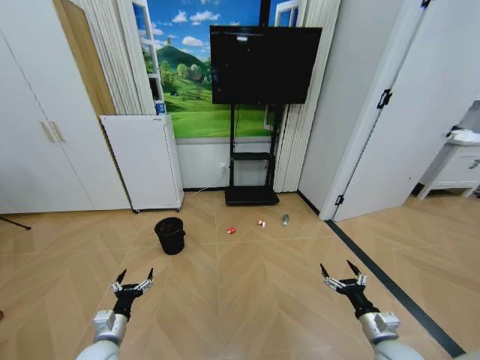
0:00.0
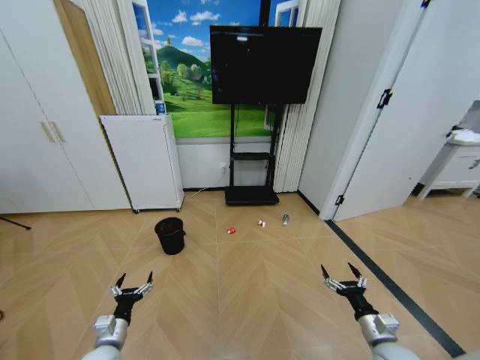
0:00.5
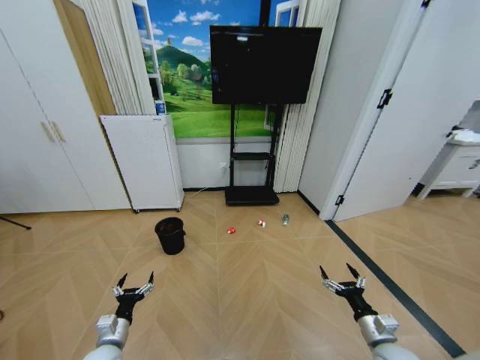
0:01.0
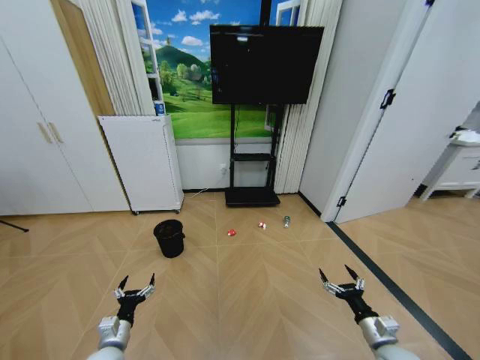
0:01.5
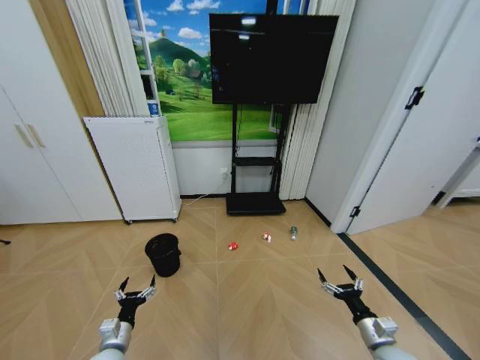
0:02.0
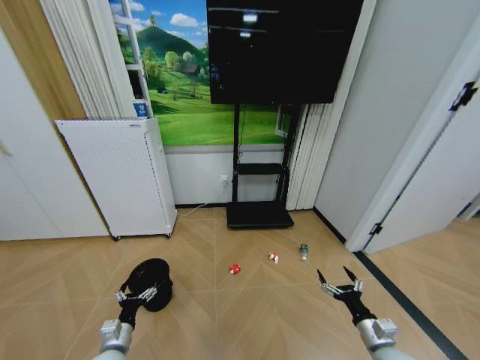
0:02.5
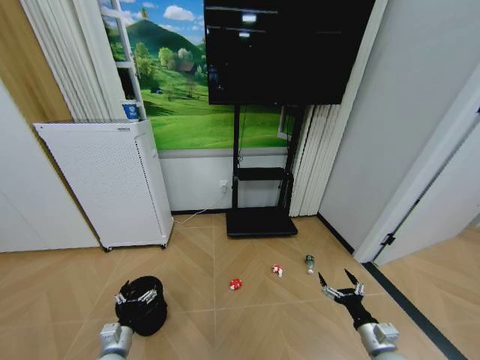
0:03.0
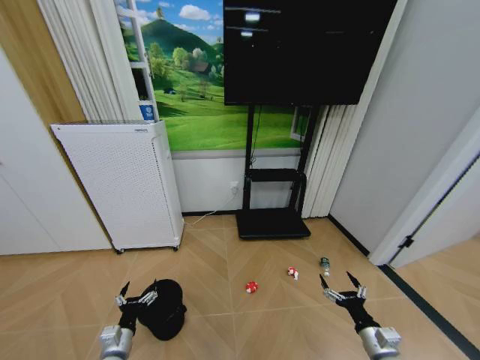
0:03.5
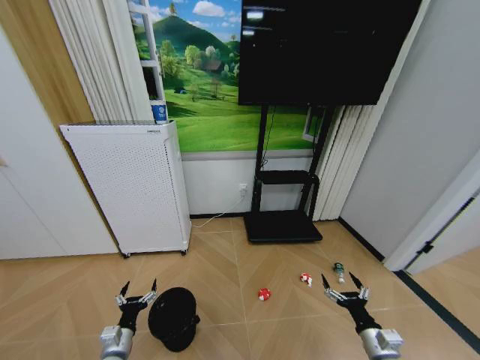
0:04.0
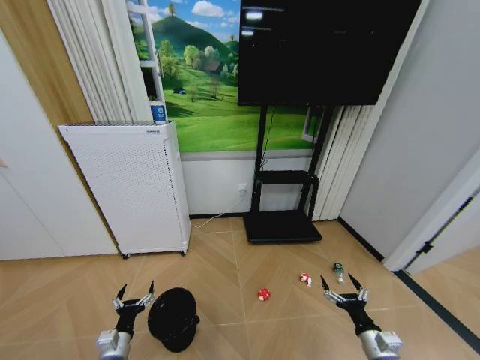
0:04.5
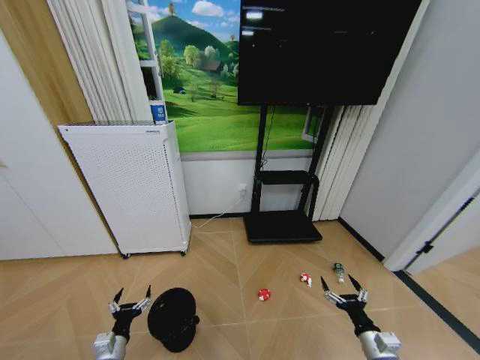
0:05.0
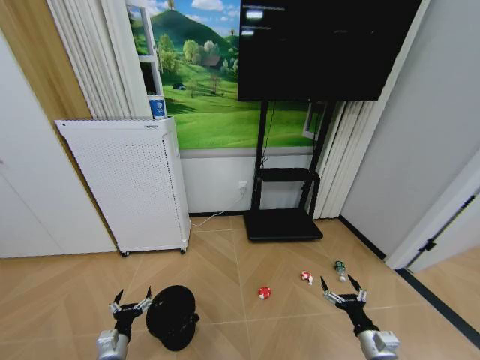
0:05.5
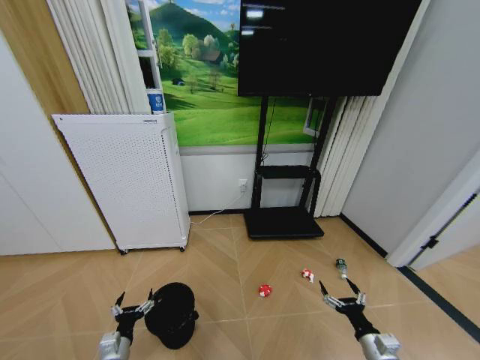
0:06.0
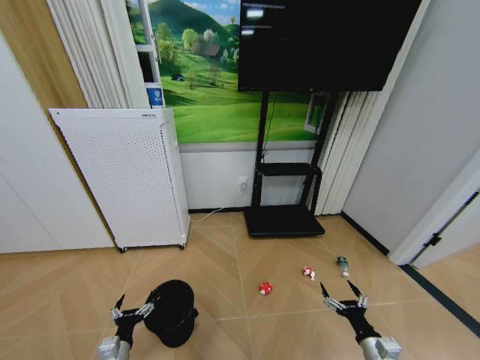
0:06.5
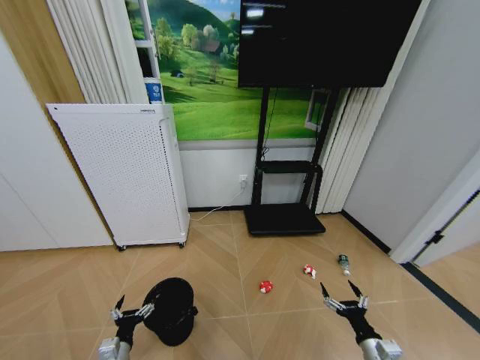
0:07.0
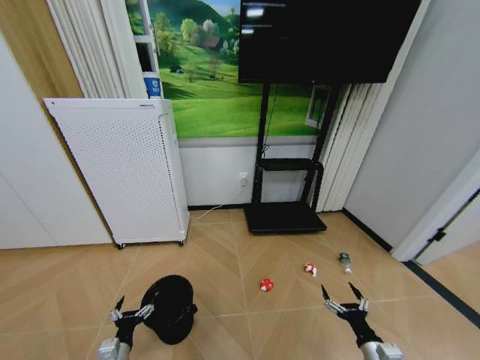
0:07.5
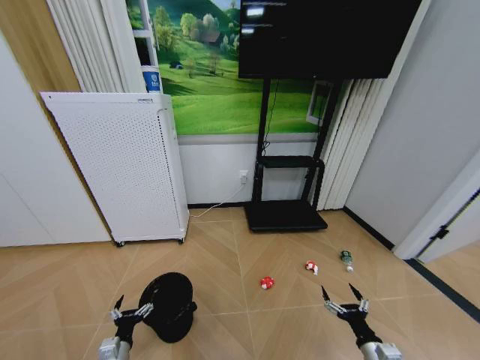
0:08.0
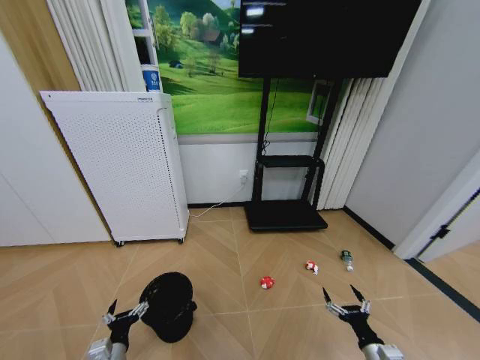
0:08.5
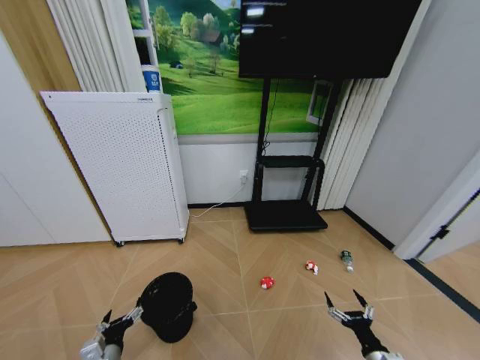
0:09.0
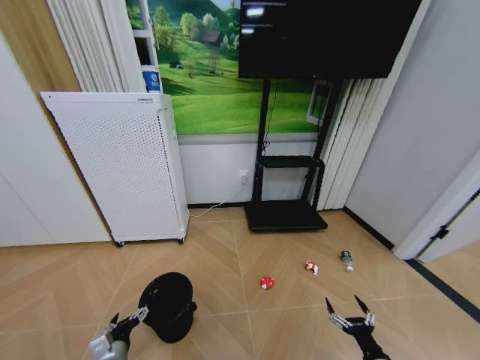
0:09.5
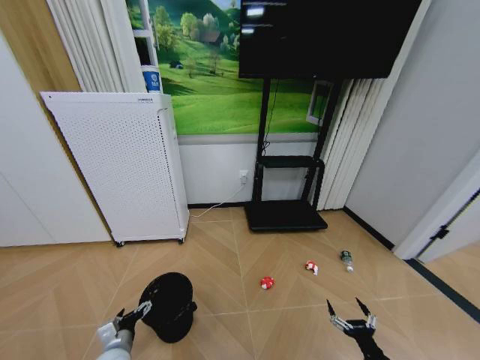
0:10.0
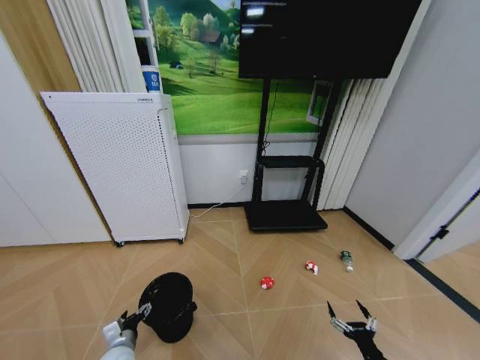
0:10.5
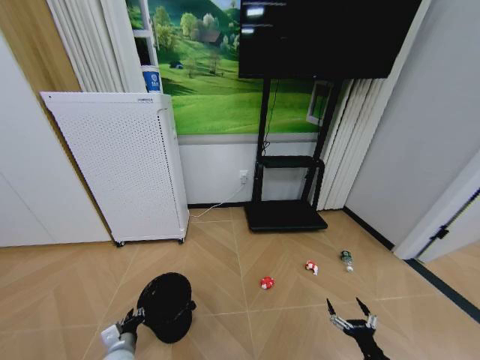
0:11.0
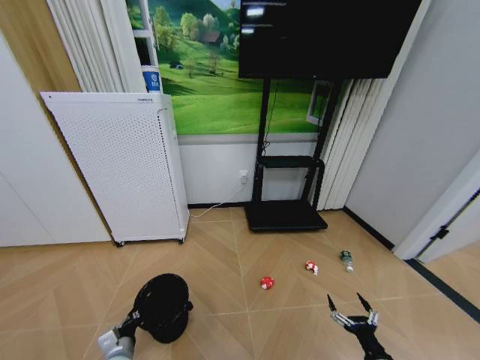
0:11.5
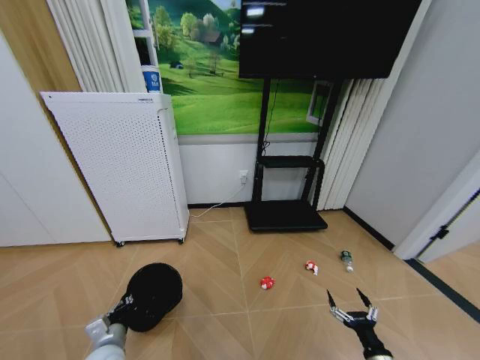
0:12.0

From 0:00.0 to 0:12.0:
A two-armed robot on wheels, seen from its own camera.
Task of the whole recording: Pick up the trash bin and place the garbage on the floor into it.
From 0:04.0 to 0:08.0: The grippers make only small movements.
From 0:10.0 to 0:12.0: The left gripper closes up.

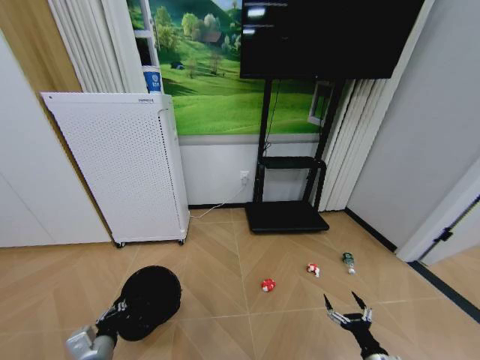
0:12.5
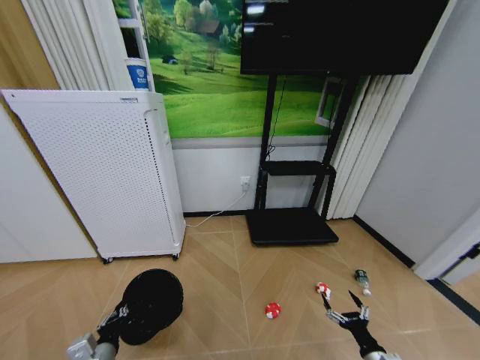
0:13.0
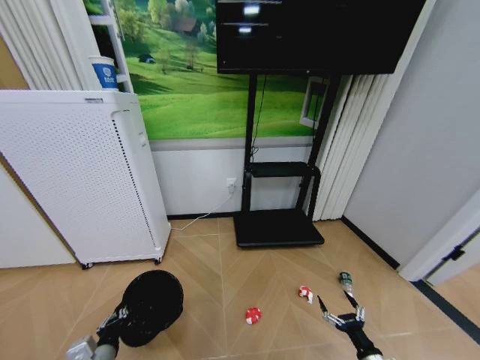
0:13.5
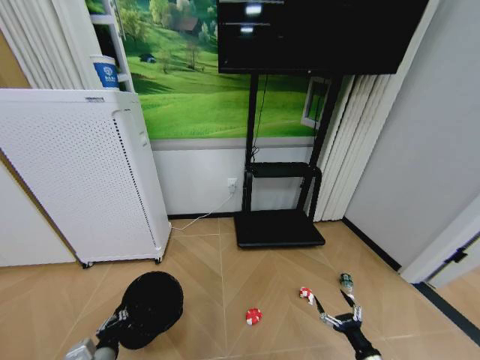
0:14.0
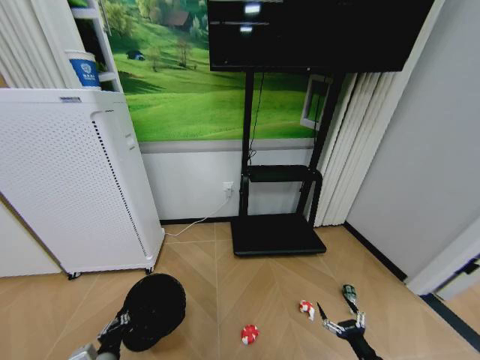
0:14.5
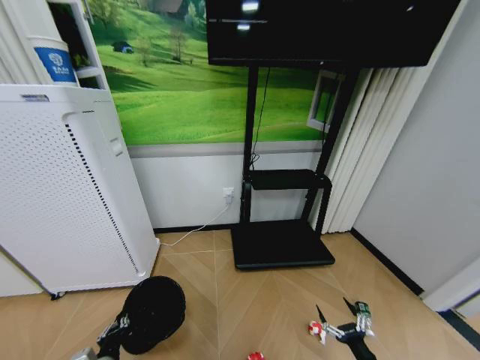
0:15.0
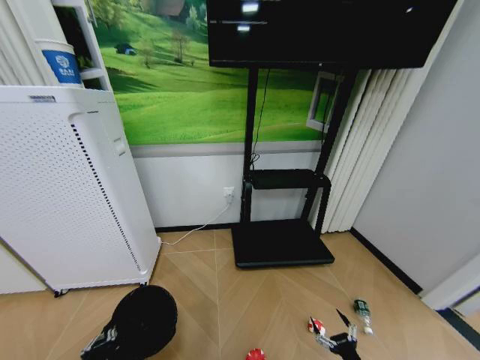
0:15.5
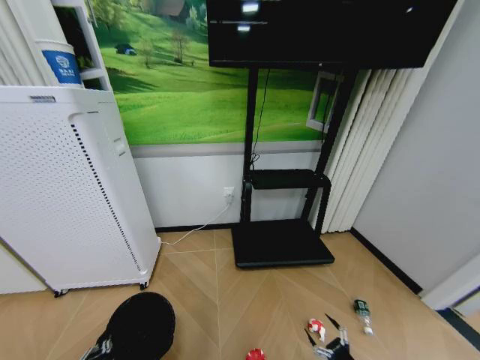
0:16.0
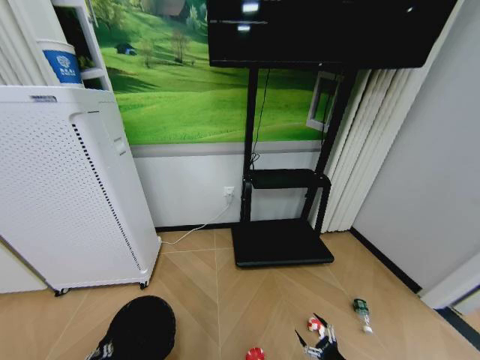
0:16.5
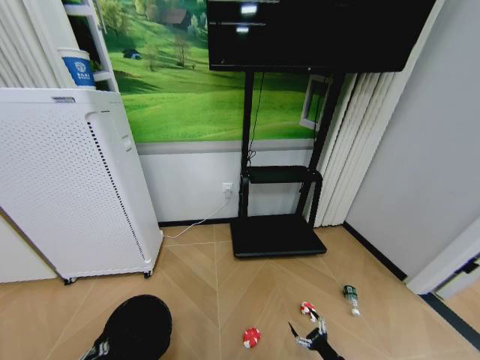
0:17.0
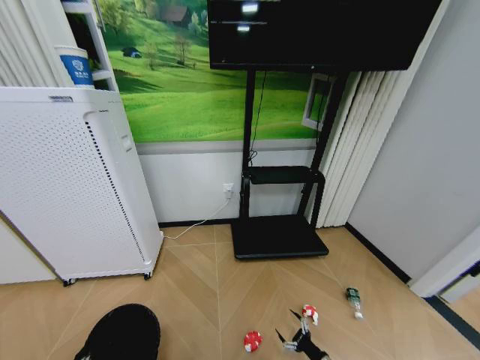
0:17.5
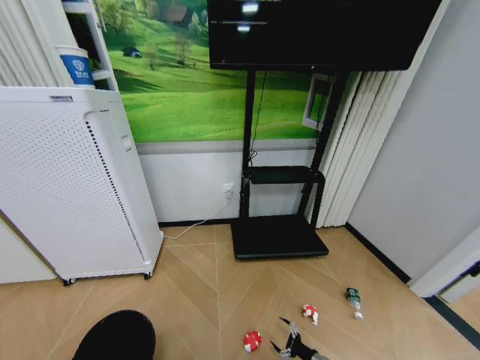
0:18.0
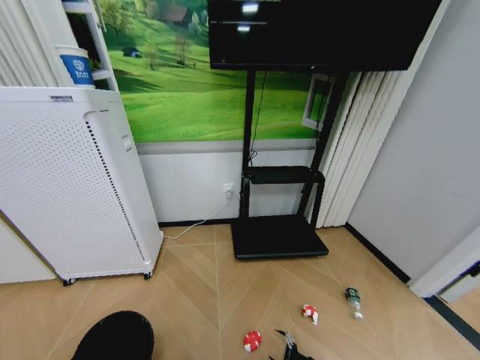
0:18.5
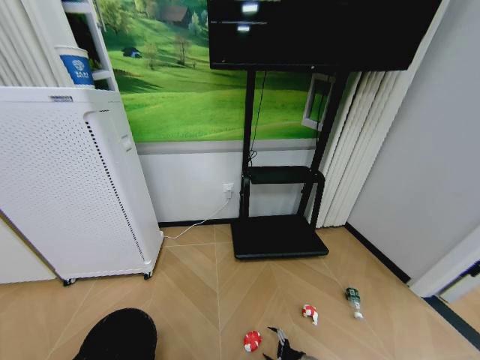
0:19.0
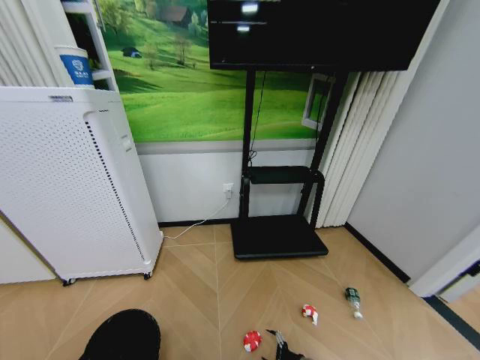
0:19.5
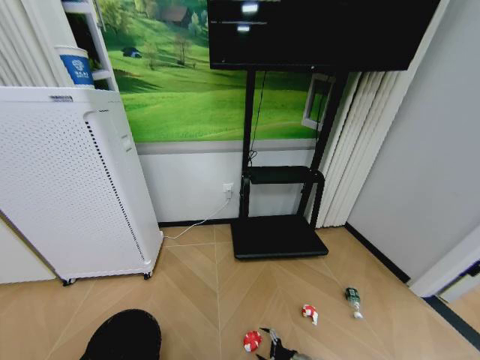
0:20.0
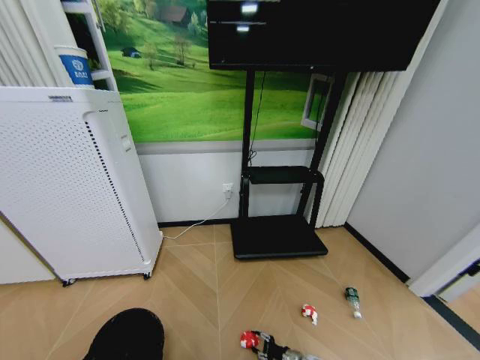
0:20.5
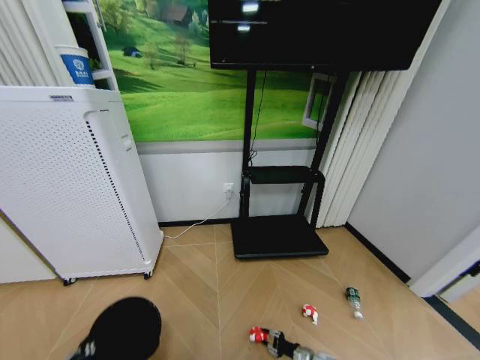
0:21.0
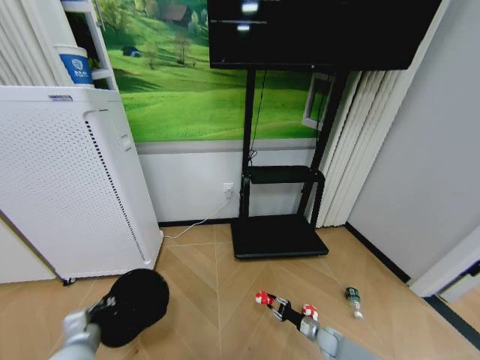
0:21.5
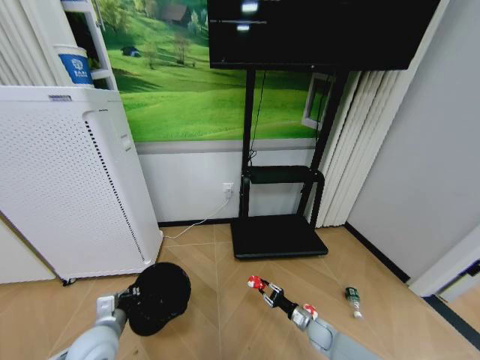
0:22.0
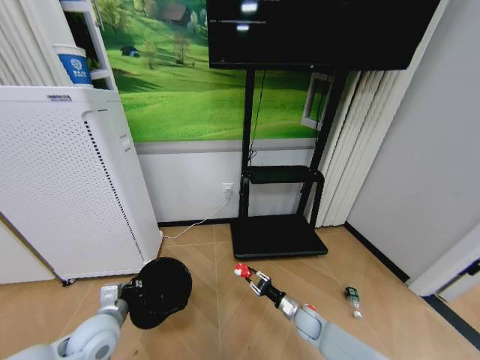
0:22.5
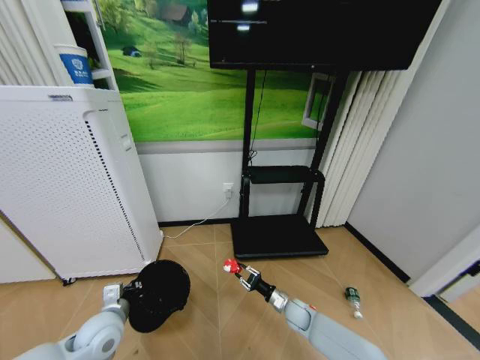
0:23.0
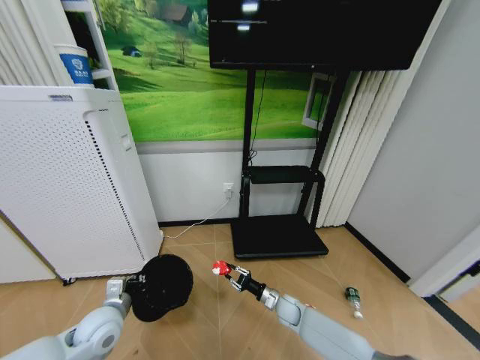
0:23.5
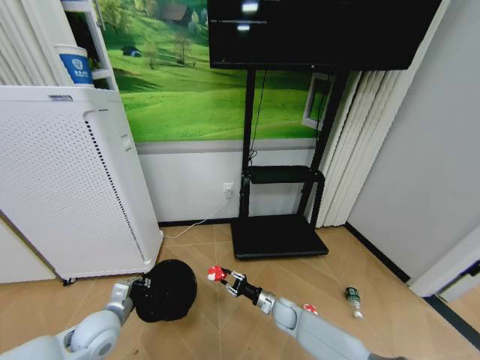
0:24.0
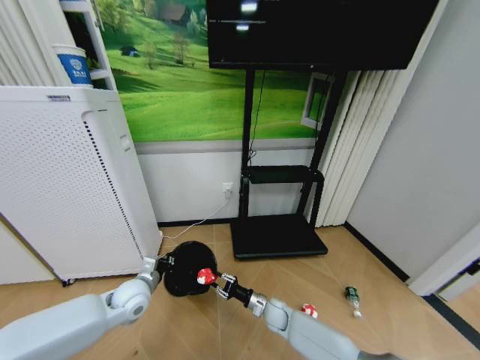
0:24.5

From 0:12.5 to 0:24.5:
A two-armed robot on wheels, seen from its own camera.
Task of the whole recording: Pick up the trash bin and place the garbage on the floor into it.
From 0:14.5 to 0:16.5: The left gripper is displaced backward by approximately 5 cm. The right gripper is displaced downward by approximately 5 cm.
From 0:16.5 to 0:18.5: The right gripper moves downward and forward, approximately 15 cm. Meanwhile the left gripper ends up about 5 cm from where it was.
From 0:18.5 to 0:20.5: The right gripper travels to the left by roughly 5 cm, and closes its fingers.
From 0:20.5 to 0:22.5: The right gripper moves upward and forward, some 20 cm; the left gripper moves forward, roughly 20 cm.
From 0:22.5 to 0:24.5: The left gripper travels forward by approximately 10 cm. The right gripper is displaced to the left by approximately 10 cm.

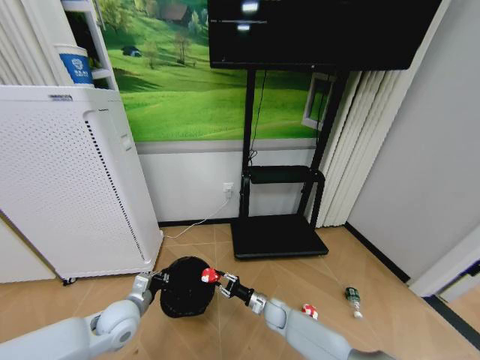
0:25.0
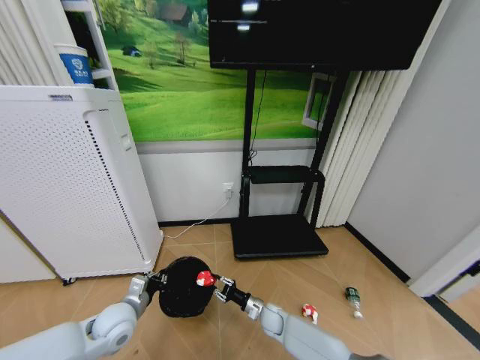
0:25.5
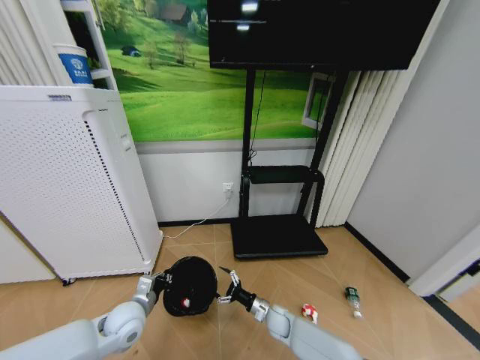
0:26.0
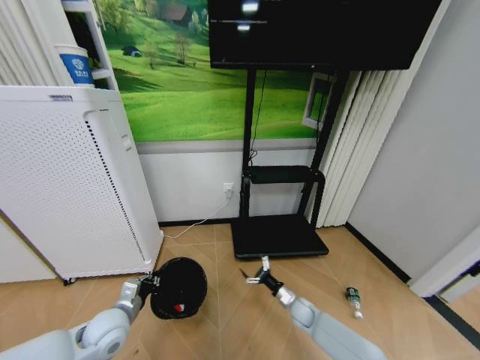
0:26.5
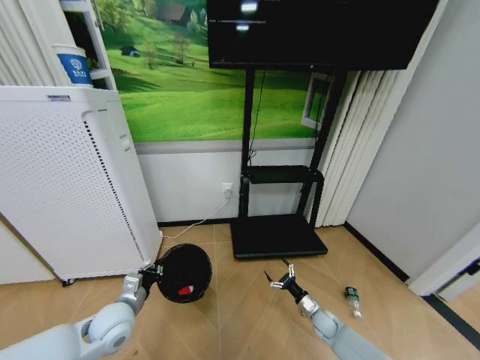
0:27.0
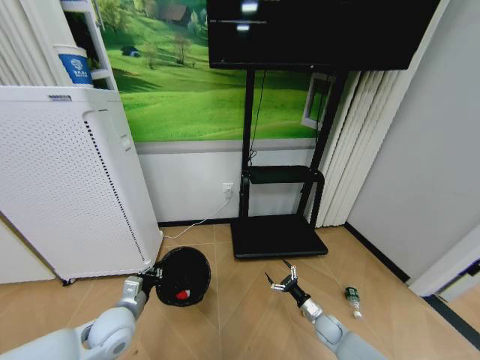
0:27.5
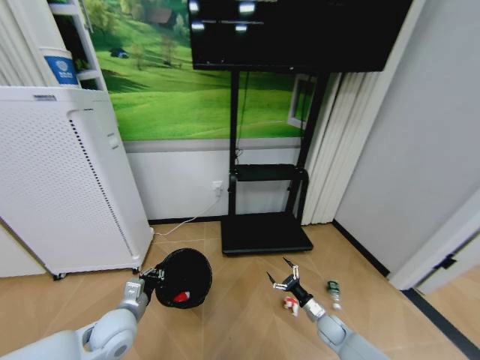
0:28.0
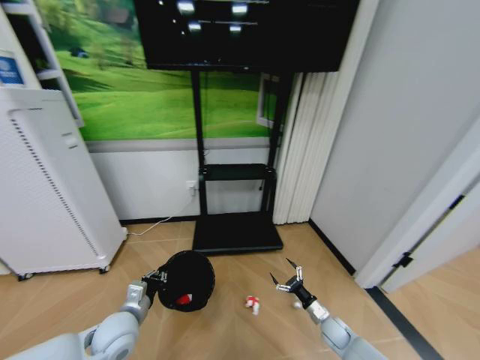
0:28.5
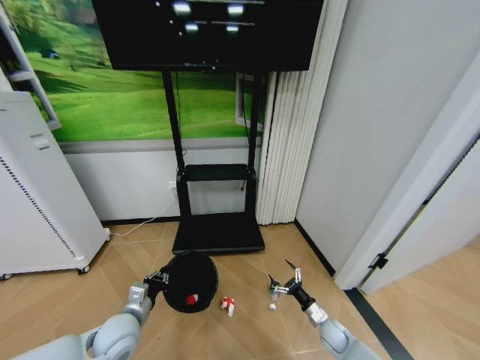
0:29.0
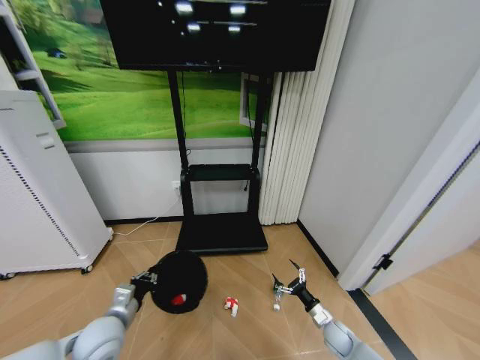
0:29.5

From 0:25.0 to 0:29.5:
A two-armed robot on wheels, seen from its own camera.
Task of the whole recording: Pick up the trash bin and place the garbage on the floor into it.
From 0:25.0 to 0:27.0: The right gripper heads to the right, covering approximately 20 cm, and opens its fingers.
From 0:27.0 to 0:29.5: The right gripper changes place by some 5 cm.
